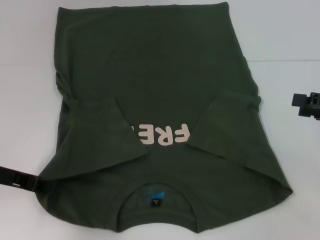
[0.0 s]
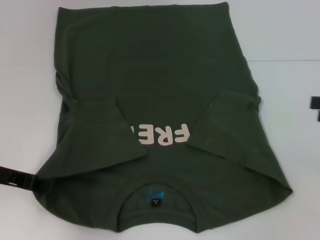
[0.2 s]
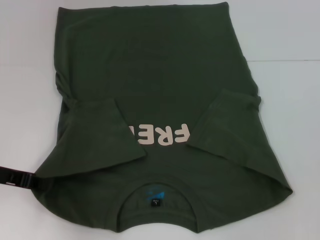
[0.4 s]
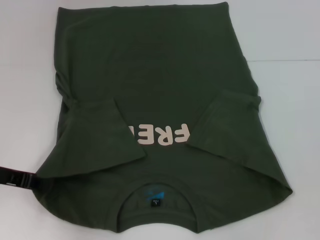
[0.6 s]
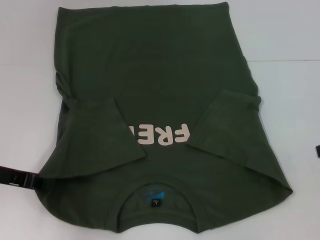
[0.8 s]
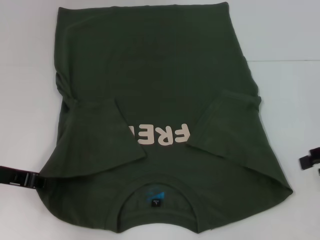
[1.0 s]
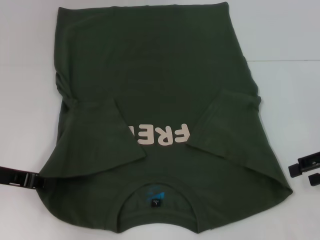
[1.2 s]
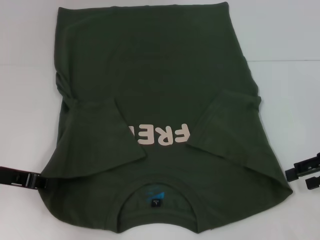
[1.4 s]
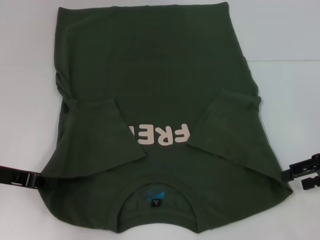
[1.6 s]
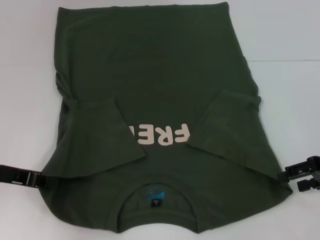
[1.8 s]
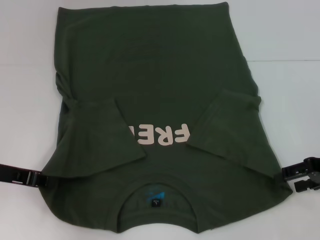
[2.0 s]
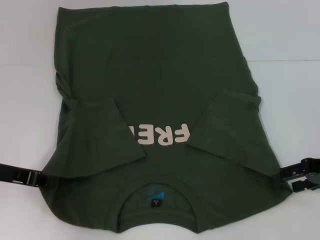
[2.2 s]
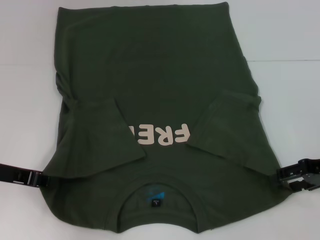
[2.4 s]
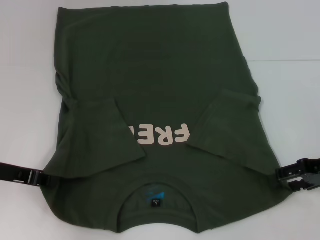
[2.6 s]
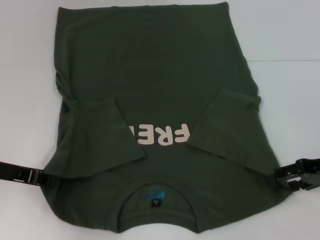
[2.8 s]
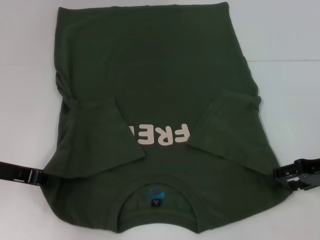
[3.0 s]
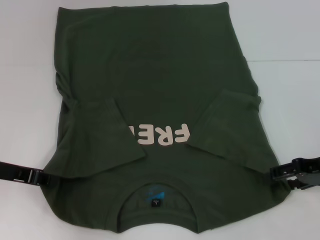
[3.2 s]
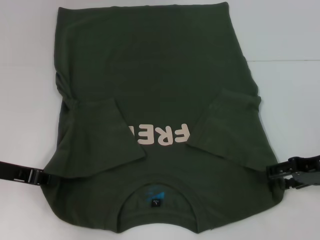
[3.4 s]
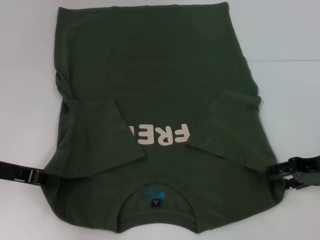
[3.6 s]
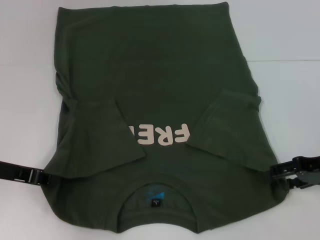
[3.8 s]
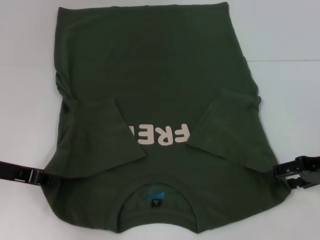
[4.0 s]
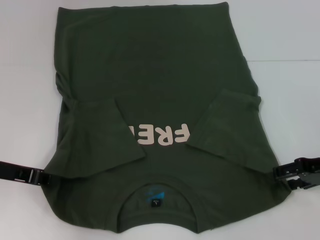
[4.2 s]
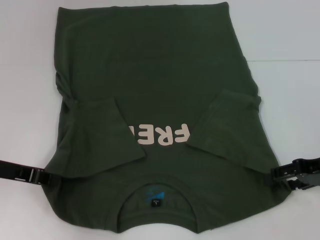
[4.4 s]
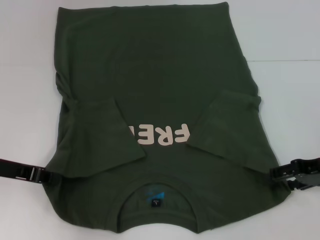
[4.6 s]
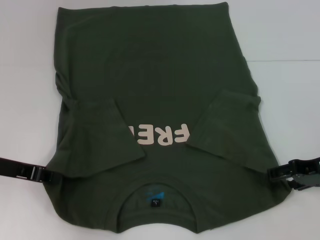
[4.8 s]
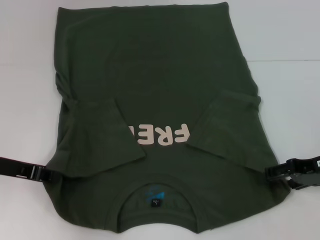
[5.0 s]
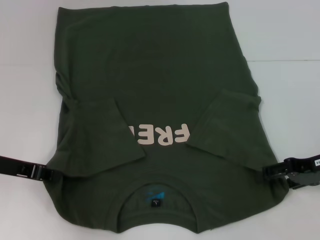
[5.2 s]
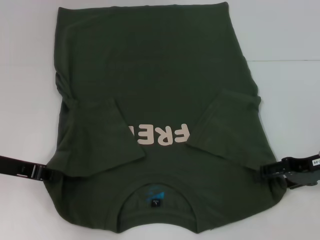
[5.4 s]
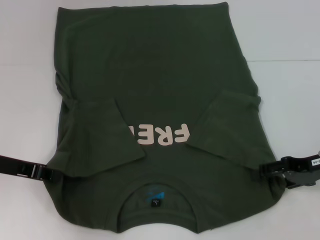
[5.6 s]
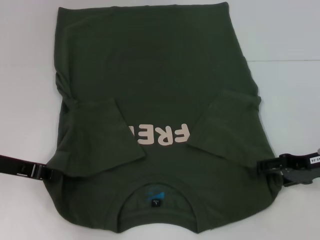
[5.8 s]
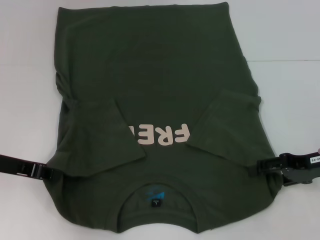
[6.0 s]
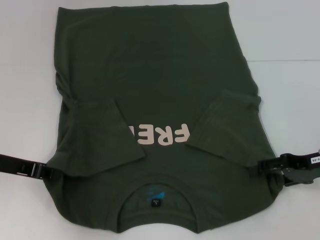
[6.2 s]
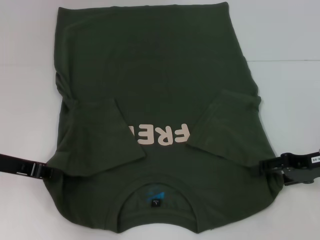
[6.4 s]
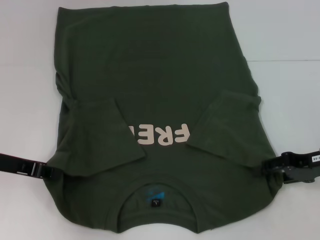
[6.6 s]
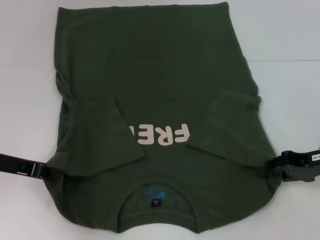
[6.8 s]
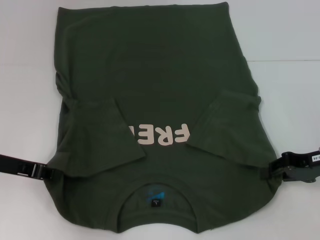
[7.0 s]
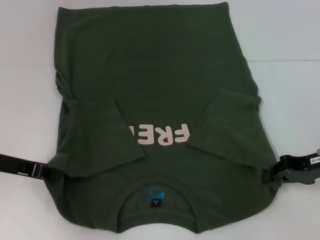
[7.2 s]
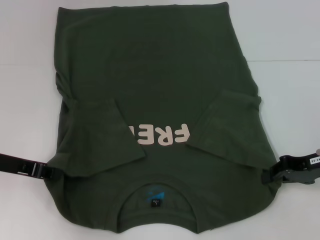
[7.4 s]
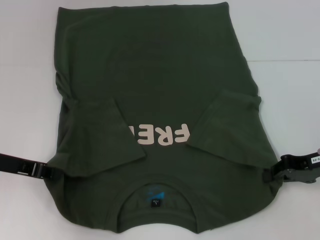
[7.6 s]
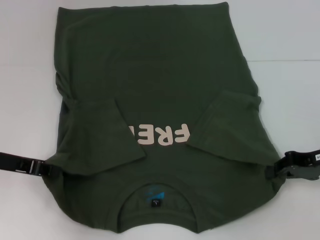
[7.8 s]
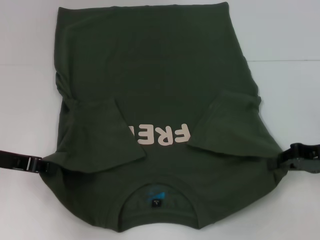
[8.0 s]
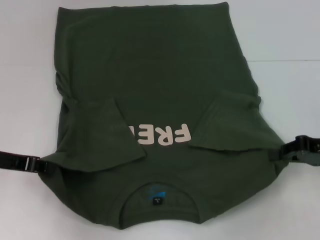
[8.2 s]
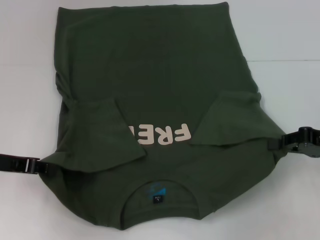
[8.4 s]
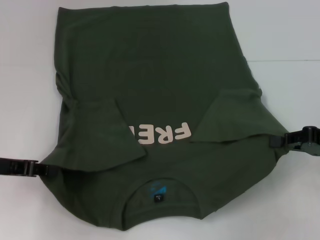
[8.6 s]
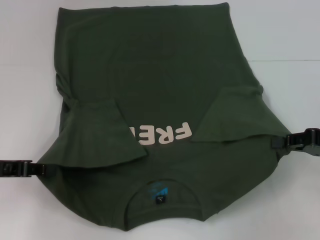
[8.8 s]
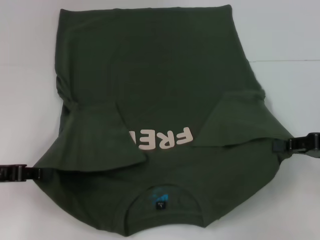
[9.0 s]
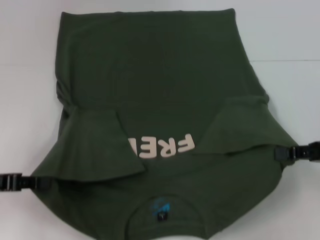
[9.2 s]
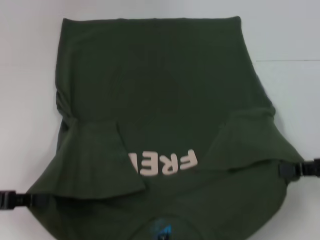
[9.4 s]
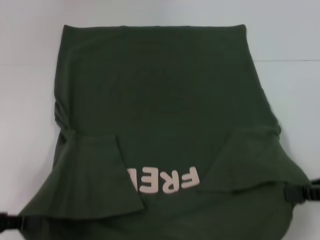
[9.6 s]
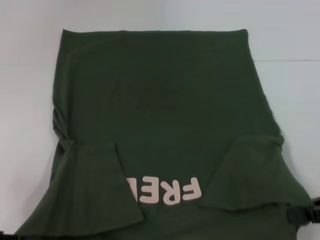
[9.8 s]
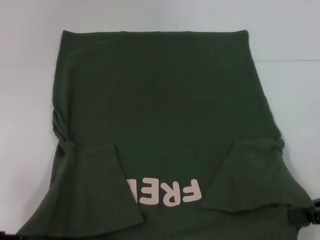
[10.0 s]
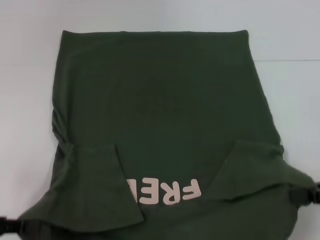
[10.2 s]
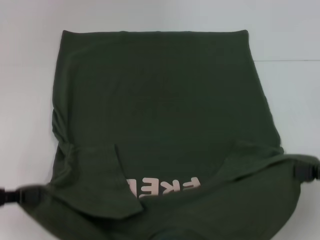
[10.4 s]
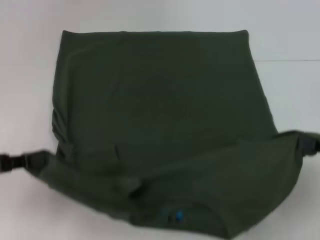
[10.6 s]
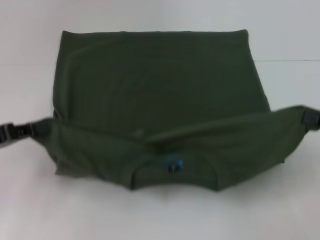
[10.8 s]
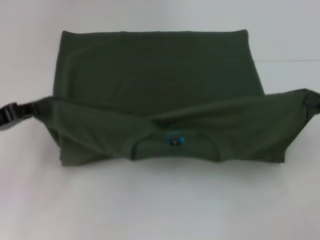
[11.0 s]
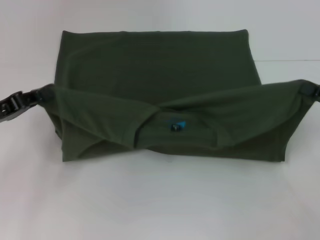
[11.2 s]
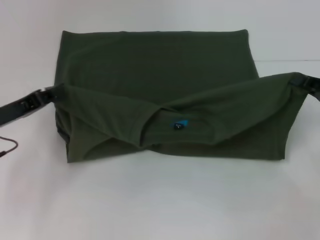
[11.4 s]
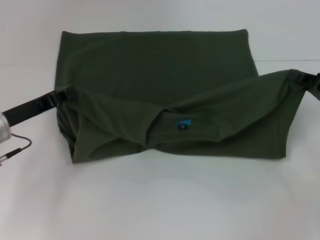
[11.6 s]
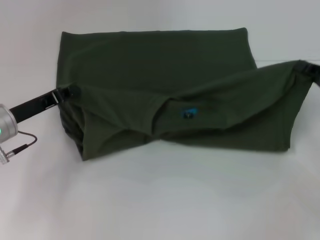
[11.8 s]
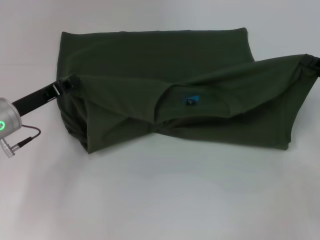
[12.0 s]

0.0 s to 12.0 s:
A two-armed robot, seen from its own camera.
Step, 0.4 to 7.6 s: Grab the bottom right corner with your right hand.
1.6 to 3.0 s: The grippers make only small movements.
3.0 to 4.4 s: Both grippers stay put.
4.4 to 6.0 s: There are only small adjustments of the grippers.
6.0 to 7.6 s: The right gripper closes up.
7.6 to 9.0 s: The left gripper changes place by roughly 5 cm.
9.0 to 10.4 s: The right gripper shifts by some 5 cm. Meanwhile the left gripper shifts by approximately 5 cm.
10.4 to 12.0 s: The right gripper shifts some 10 cm forward; the left gripper moves forward and to the right, roughly 15 cm.

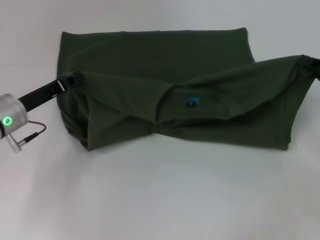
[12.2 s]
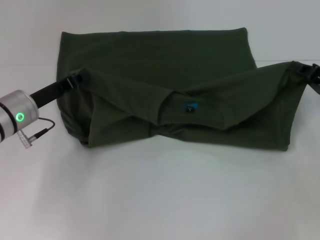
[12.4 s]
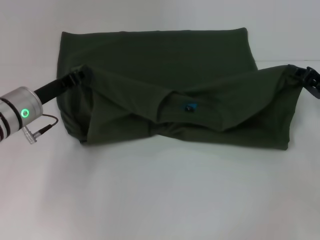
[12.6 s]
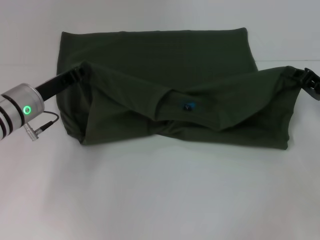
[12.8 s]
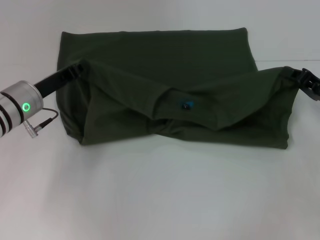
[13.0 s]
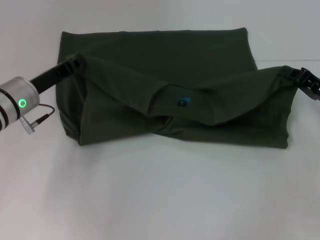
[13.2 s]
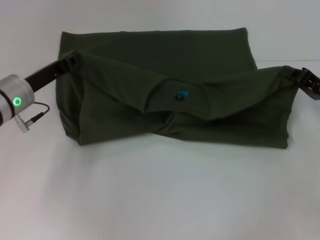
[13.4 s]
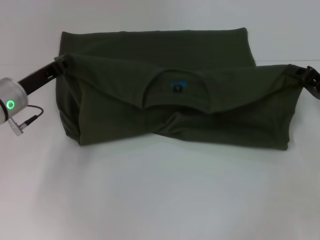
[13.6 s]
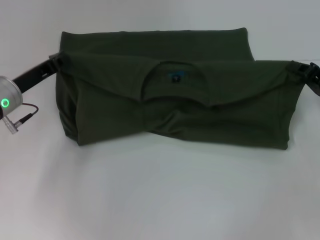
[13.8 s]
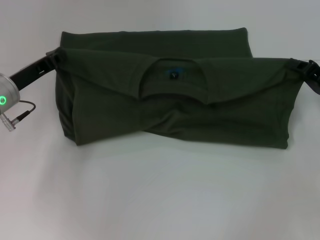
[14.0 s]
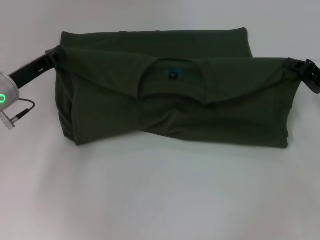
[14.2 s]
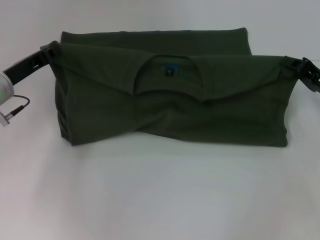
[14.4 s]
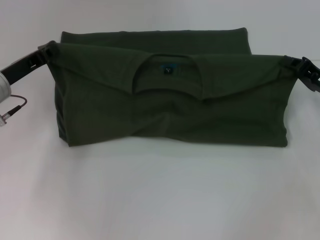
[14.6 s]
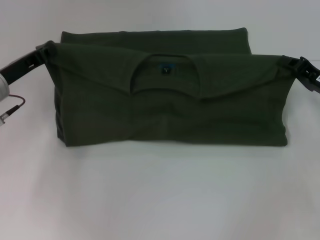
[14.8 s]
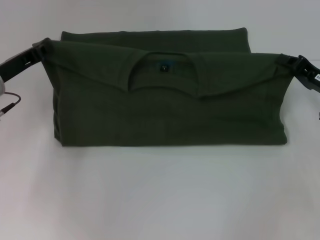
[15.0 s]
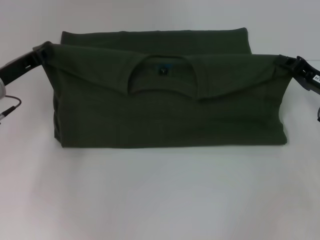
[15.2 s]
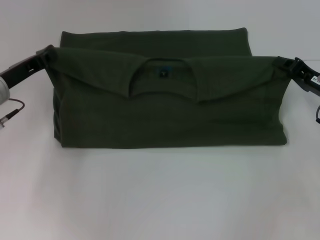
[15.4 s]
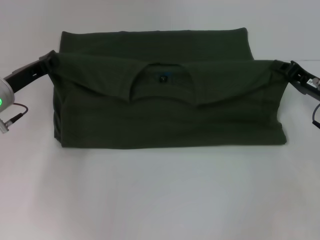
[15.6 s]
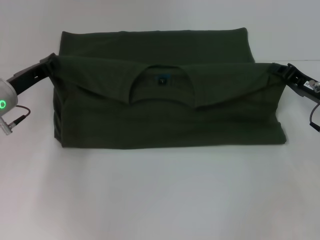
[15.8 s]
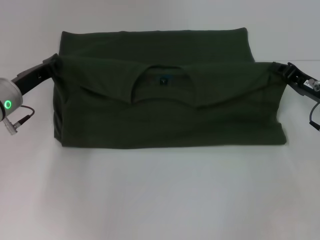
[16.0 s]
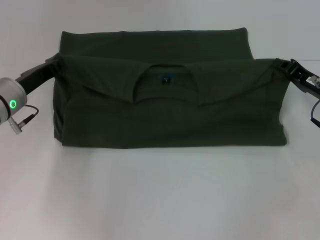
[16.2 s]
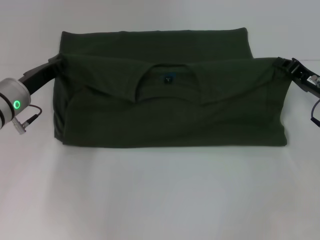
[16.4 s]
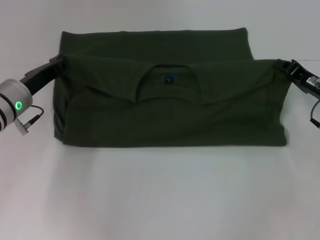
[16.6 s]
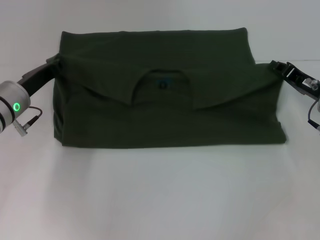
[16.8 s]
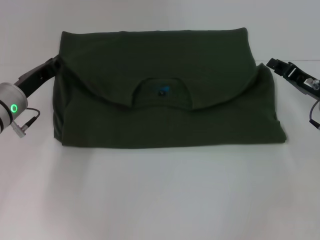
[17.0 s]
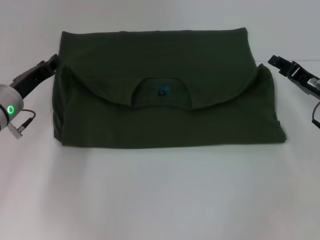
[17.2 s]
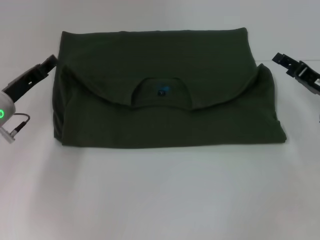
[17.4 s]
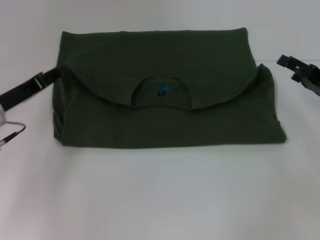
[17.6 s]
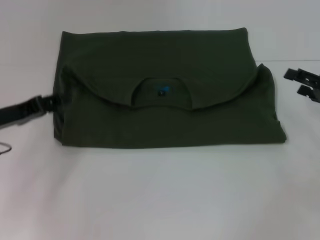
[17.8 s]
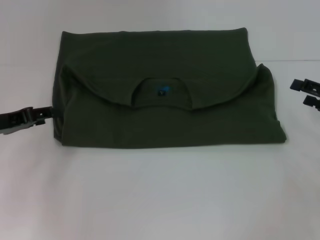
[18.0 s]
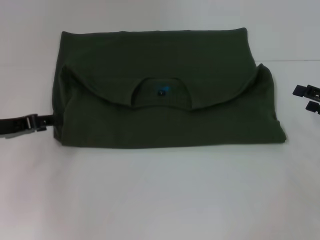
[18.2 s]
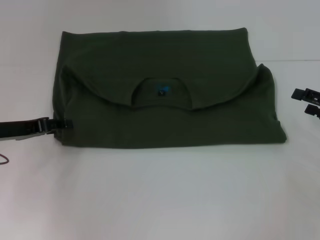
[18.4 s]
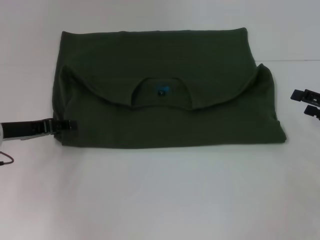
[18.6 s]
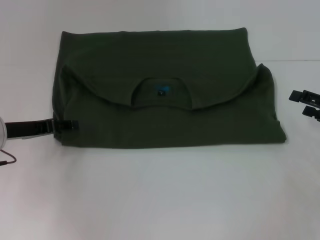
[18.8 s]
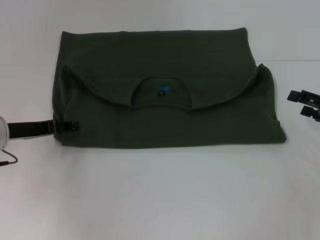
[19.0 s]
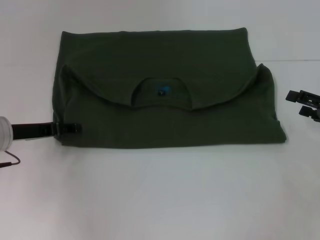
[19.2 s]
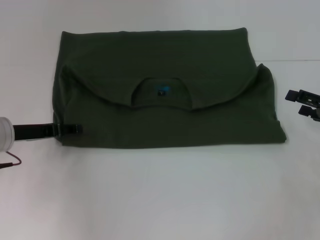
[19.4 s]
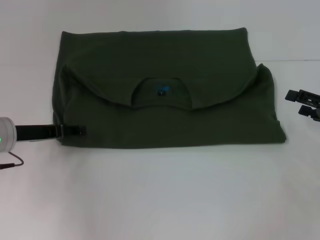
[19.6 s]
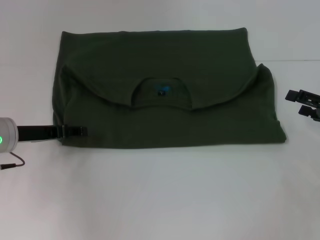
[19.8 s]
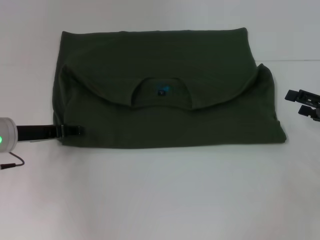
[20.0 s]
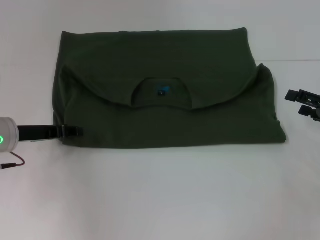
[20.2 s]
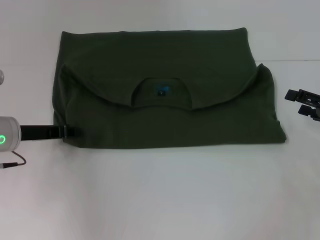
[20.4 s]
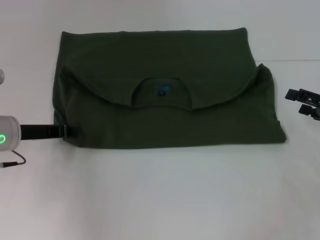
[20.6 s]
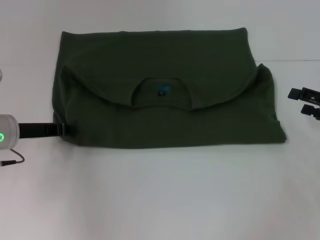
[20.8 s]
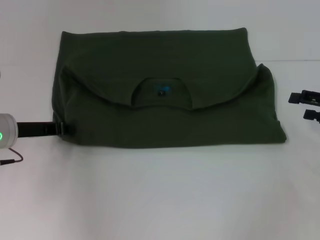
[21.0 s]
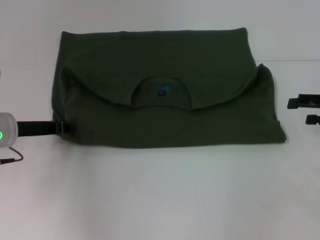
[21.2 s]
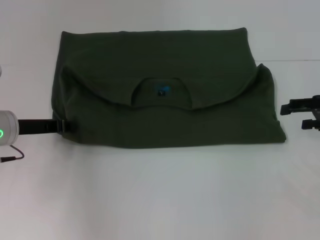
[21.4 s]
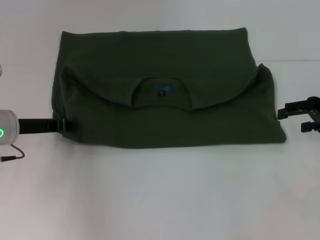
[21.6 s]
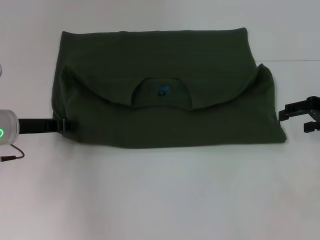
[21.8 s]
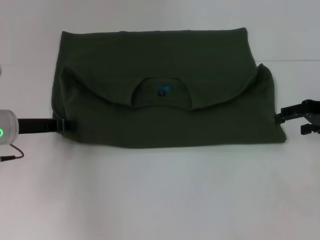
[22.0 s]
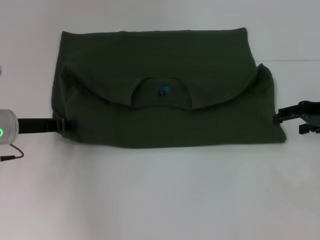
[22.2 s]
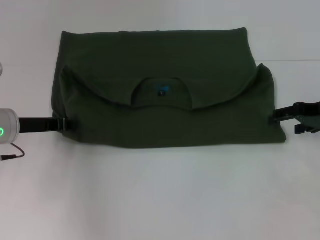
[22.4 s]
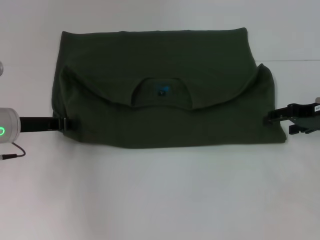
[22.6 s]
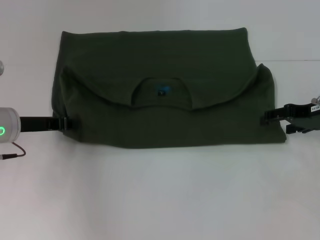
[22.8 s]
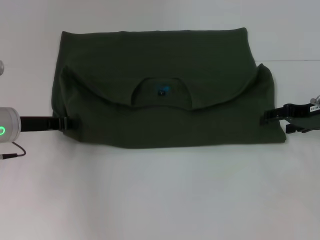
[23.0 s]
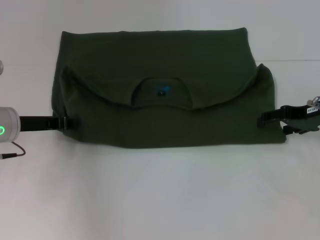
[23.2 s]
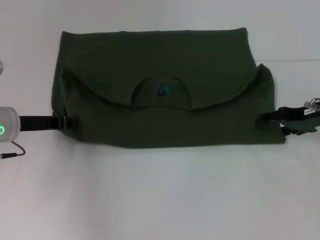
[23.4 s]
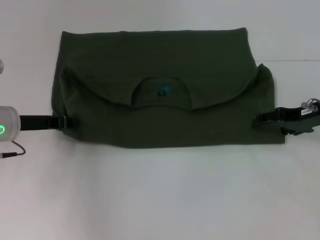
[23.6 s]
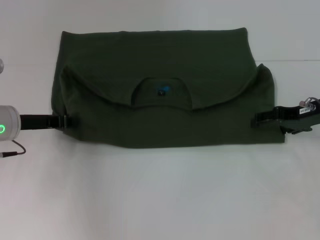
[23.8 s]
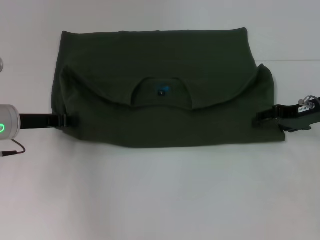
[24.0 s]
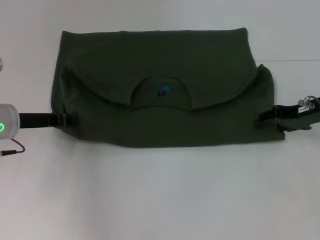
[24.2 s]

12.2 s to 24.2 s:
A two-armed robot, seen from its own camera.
Step, 12.2 to 16.8 s: Fold the clothes with your left hand.
Step, 12.2 to 16.8 s: Fold the clothes with your right hand.
12.2 to 16.6 s: The grippers make only small movements.
16.6 to 18.2 s: The right gripper heads to the right and backward, covering some 10 cm, and opens. The left gripper travels to the left and backward by approximately 10 cm, and opens.
18.2 to 19.8 s: The grippers make only small movements.
19.8 to 21.2 s: The left gripper closes its fingers. The right gripper moves some 5 cm.
21.2 to 22.6 s: The right gripper goes some 5 cm to the left.
22.6 to 24.2 s: The grippers make only small movements.
